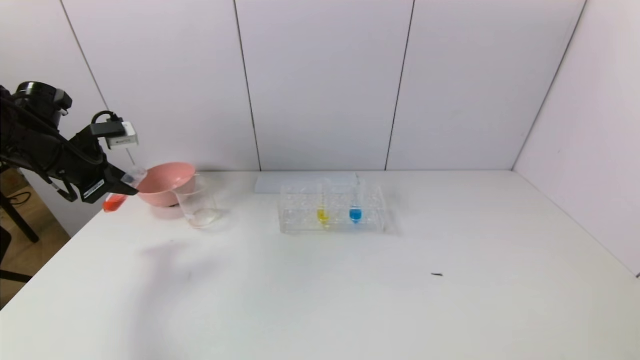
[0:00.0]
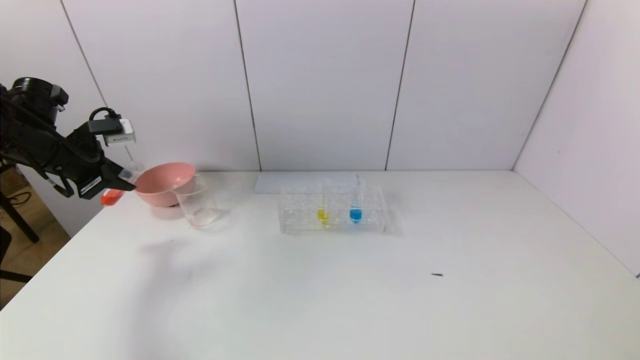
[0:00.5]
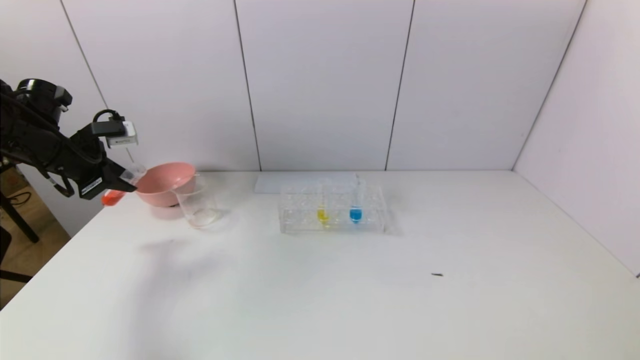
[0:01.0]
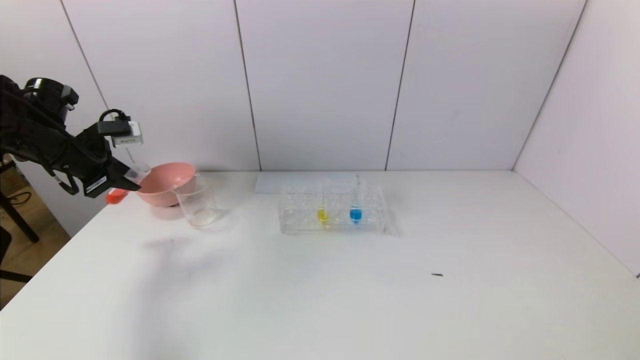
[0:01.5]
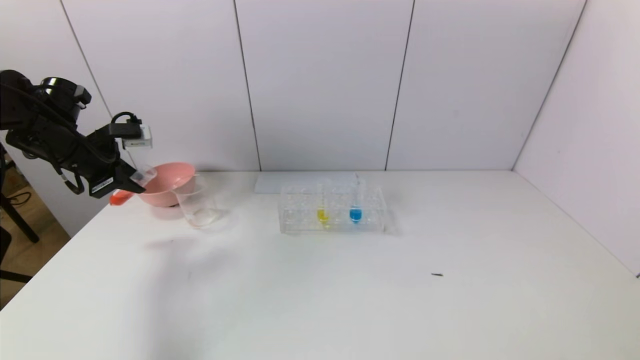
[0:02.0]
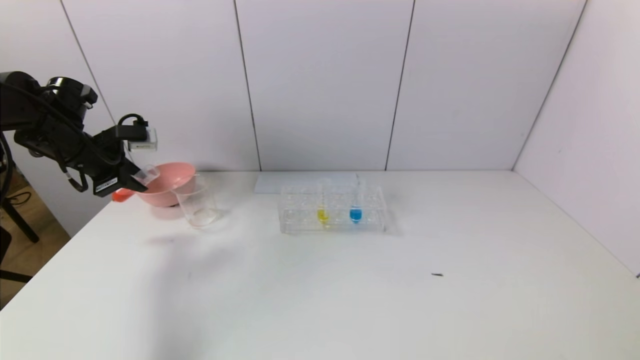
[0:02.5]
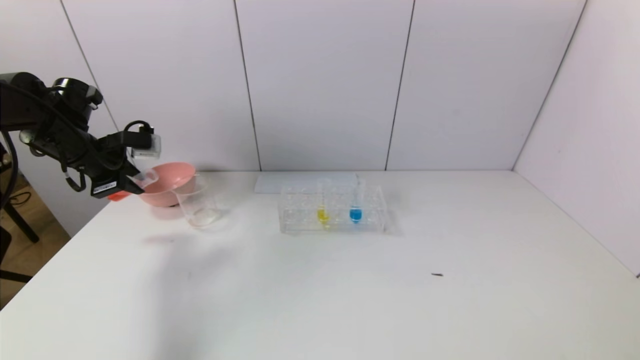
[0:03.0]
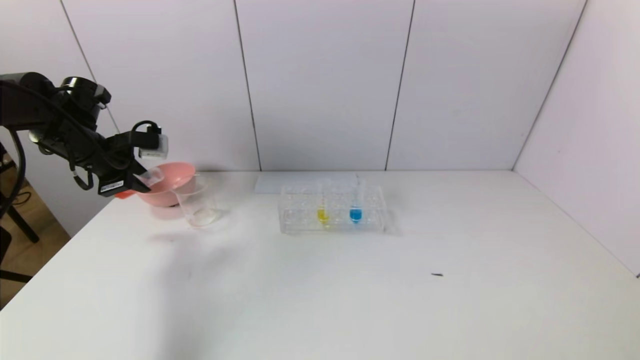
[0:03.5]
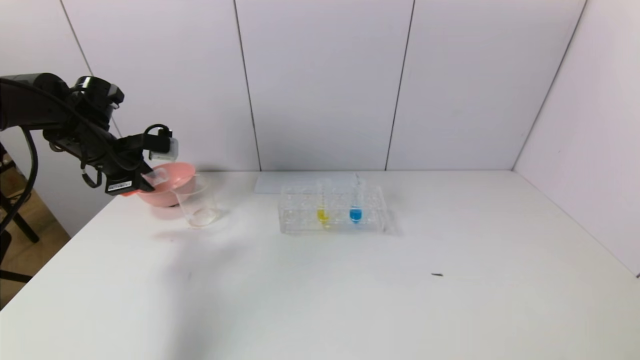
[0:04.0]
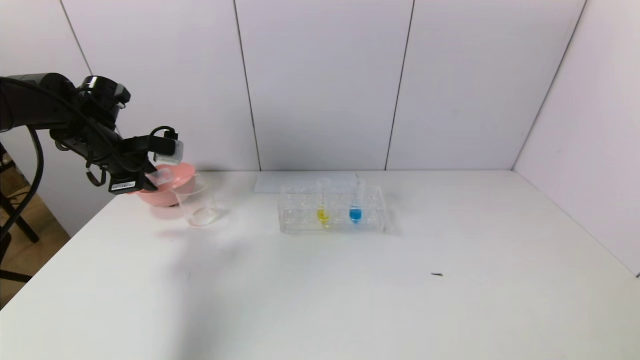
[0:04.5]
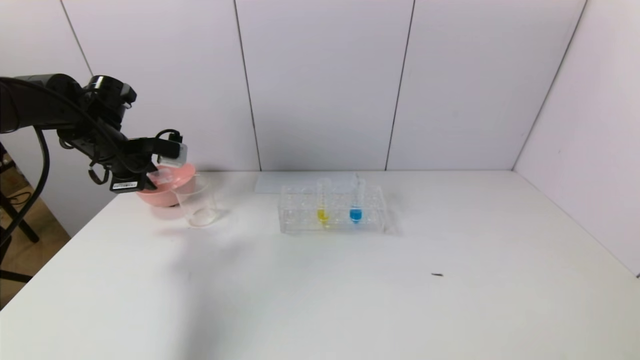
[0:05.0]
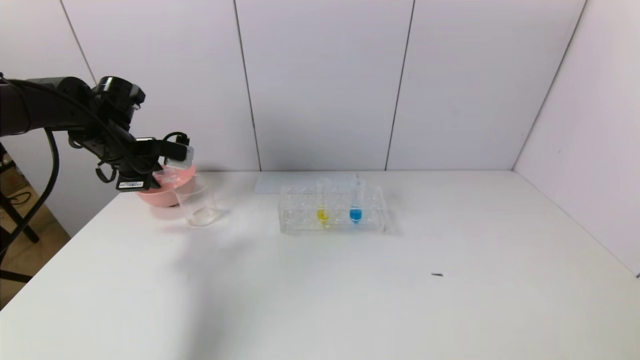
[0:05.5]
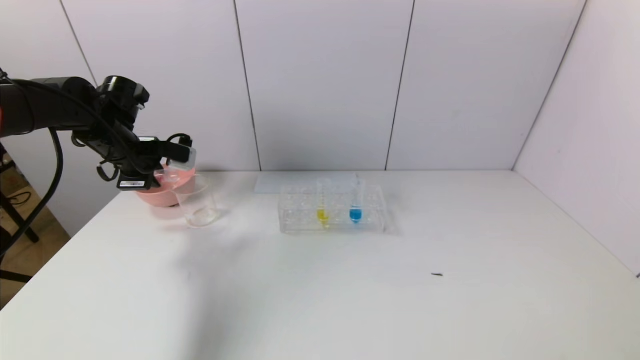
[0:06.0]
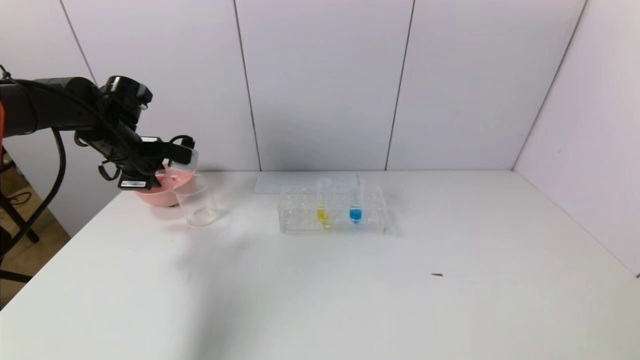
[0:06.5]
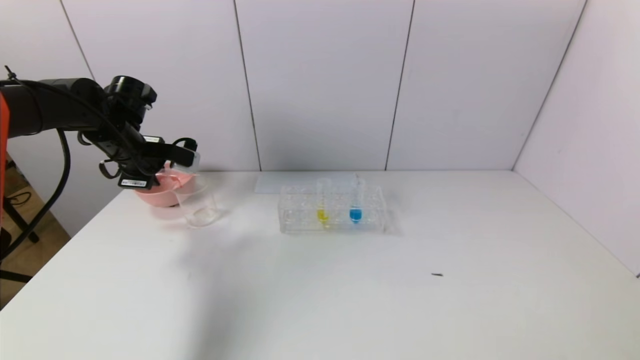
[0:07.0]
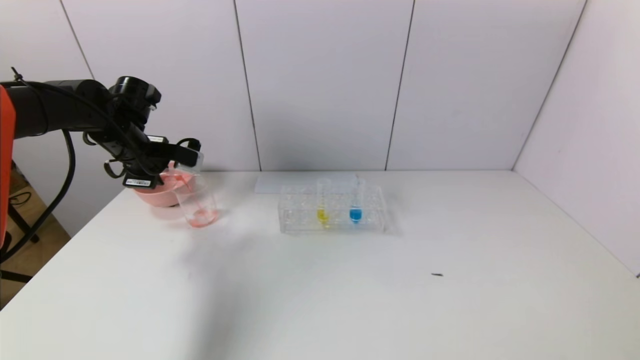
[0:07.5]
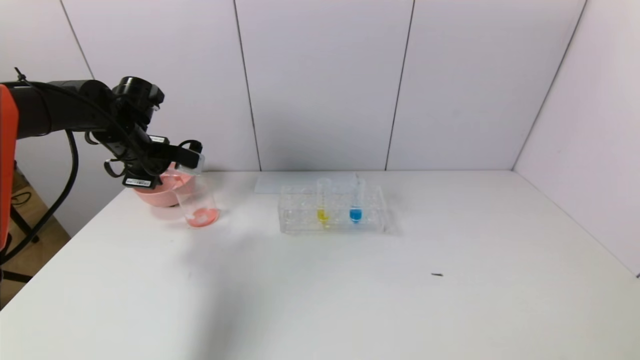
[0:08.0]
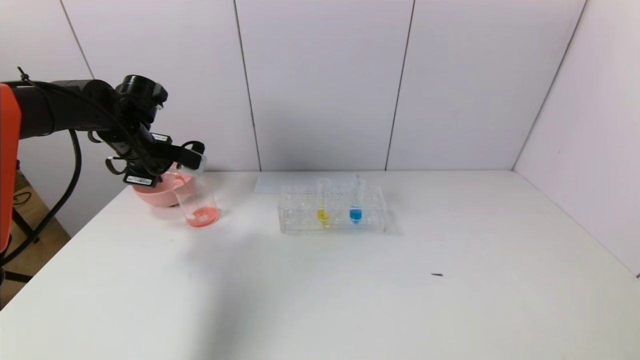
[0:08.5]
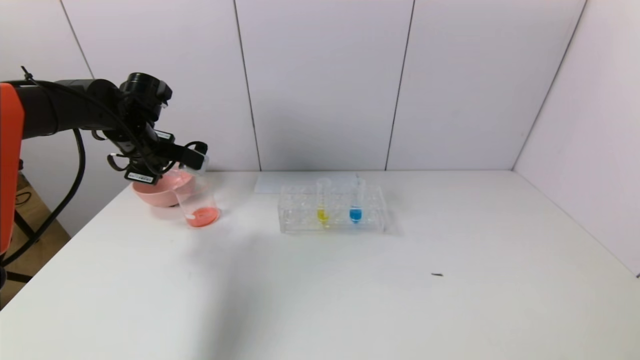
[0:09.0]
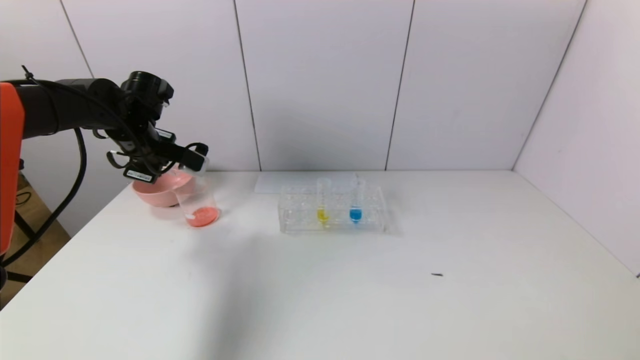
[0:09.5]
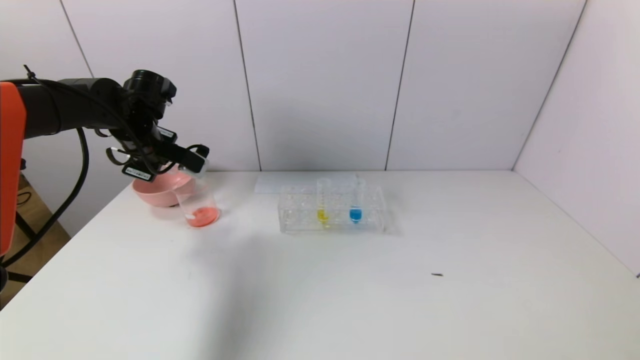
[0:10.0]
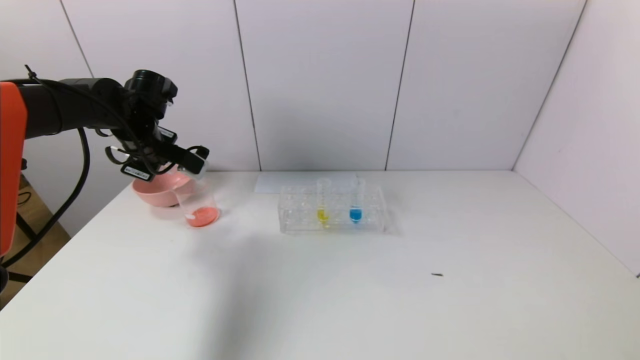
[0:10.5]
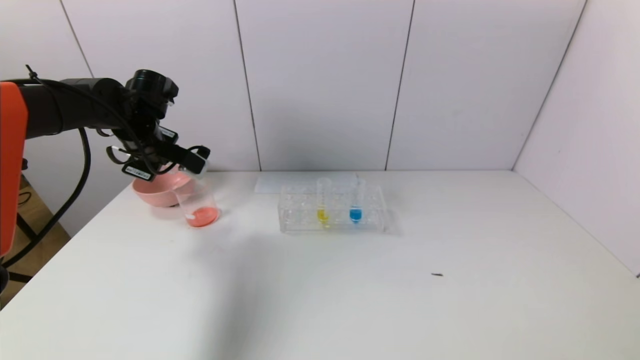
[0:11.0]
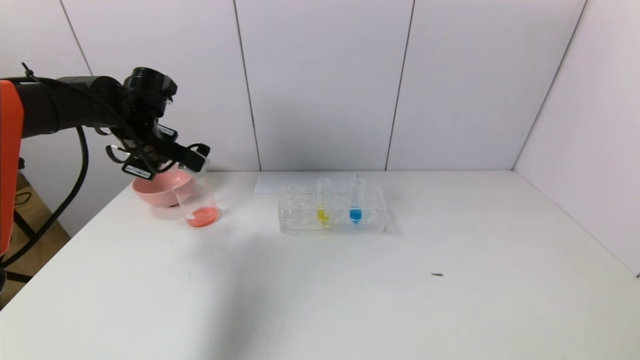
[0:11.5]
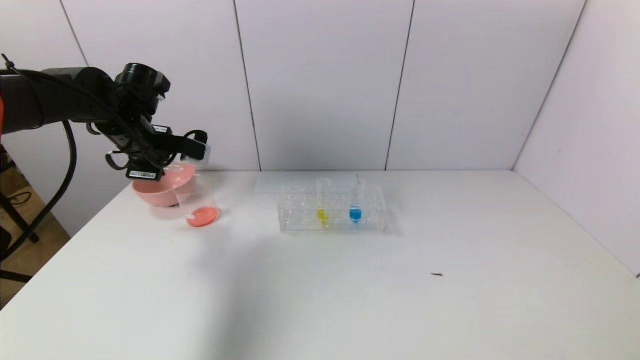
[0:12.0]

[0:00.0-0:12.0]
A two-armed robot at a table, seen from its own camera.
Task of the whole recording: pick up the test tube with yellow pigment and the test tube with red pigment by grippers and pour them into the beaker.
Step, 0:00.0 to 0:11.5: Pour the red reagent into the graduated cylinder with the left gripper.
0:00.0 to 0:02.0: The grippers stay close to where they were, moving slightly.
0:02.0 to 0:04.0: The grippers stay close to where they were, moving slightly.
0:04.0 to 0:06.0: There are only small adjustments of the grippers.
0:06.0 to 0:08.0: The grippers make only small movements.
0:08.0 to 0:12.0: There are only small adjustments of the grippers.

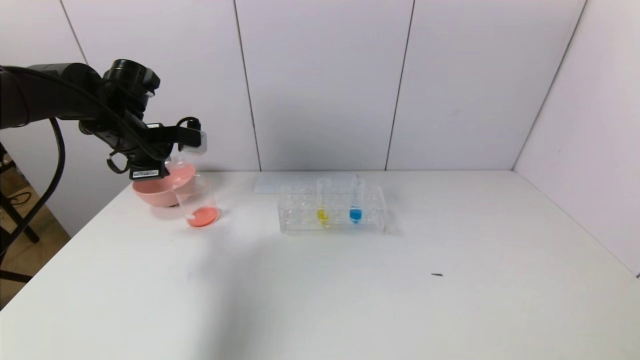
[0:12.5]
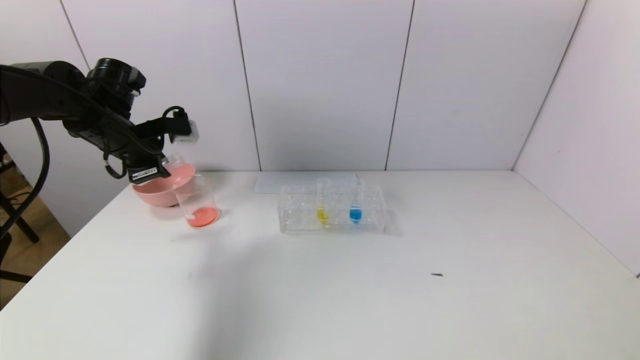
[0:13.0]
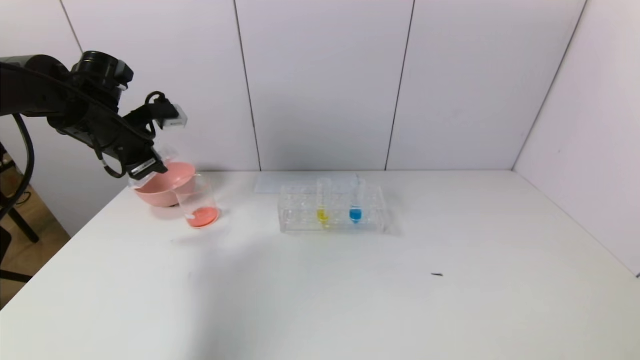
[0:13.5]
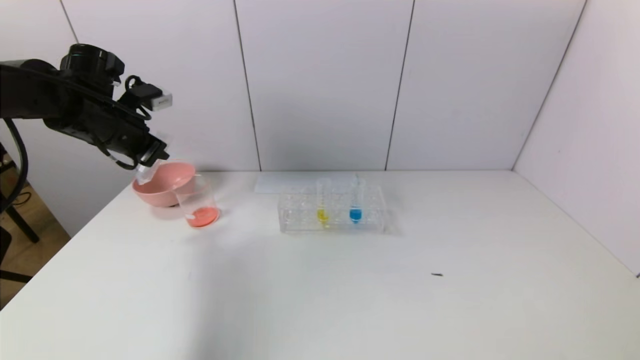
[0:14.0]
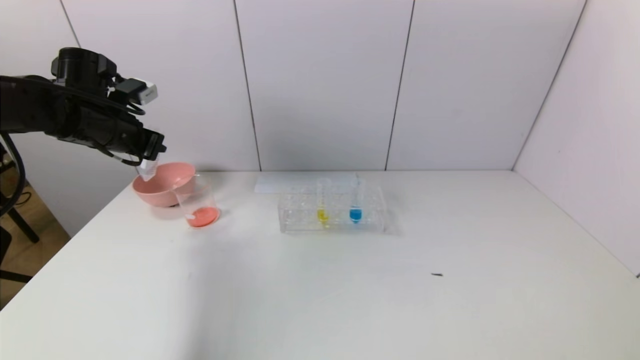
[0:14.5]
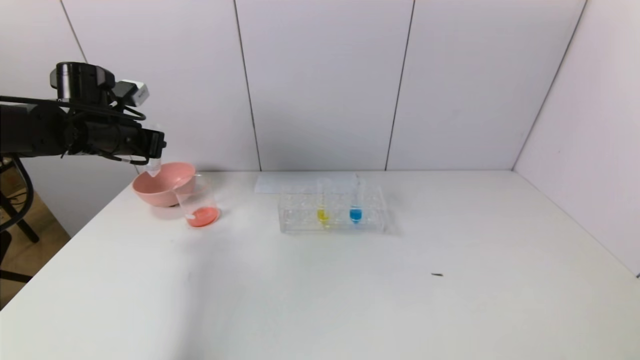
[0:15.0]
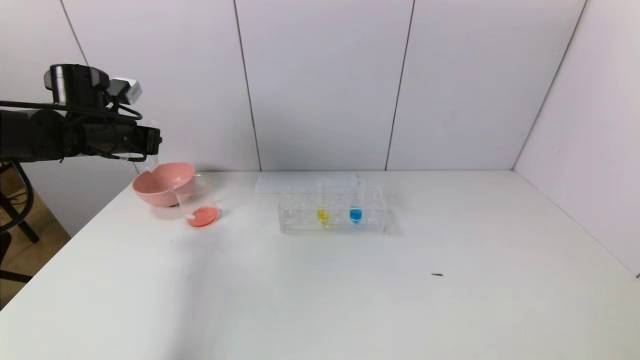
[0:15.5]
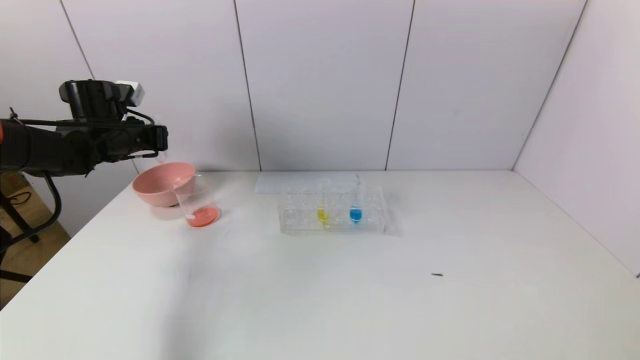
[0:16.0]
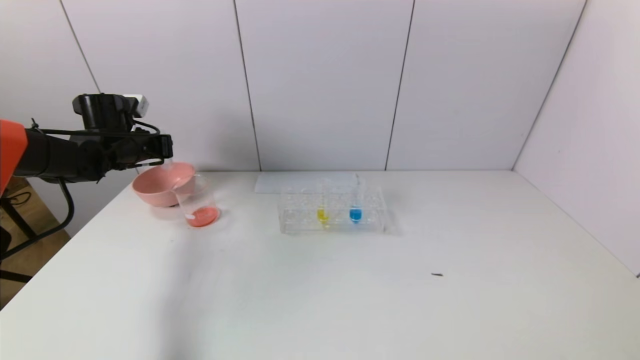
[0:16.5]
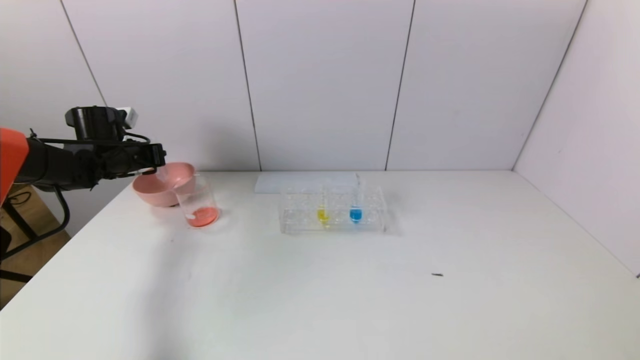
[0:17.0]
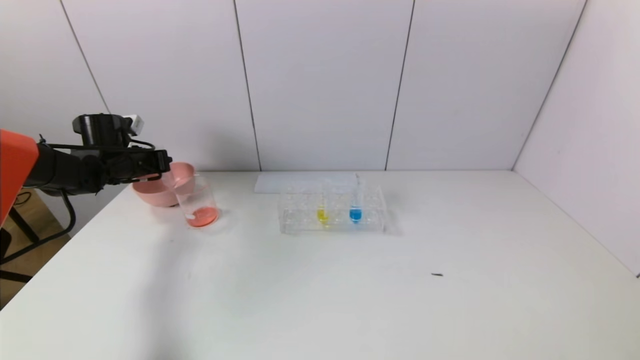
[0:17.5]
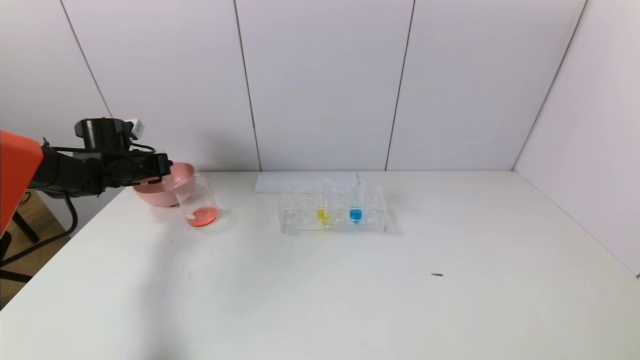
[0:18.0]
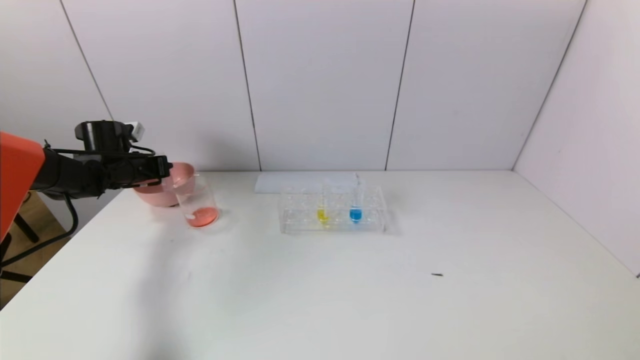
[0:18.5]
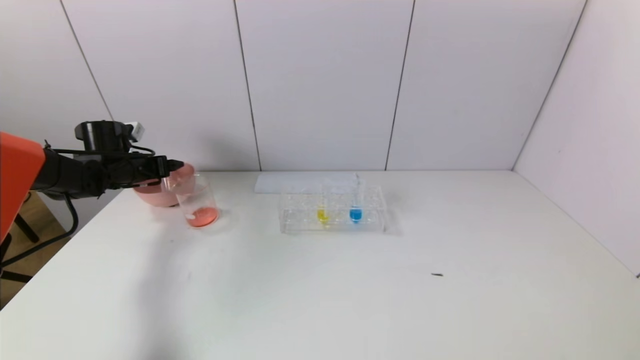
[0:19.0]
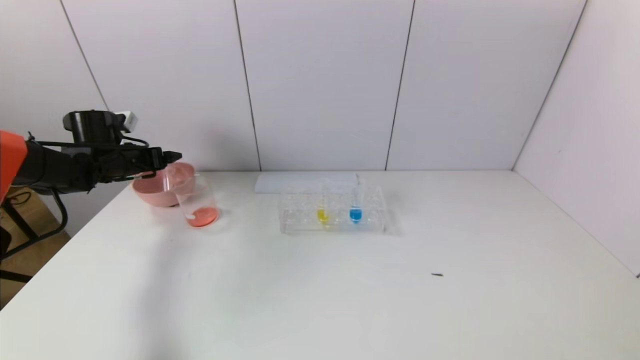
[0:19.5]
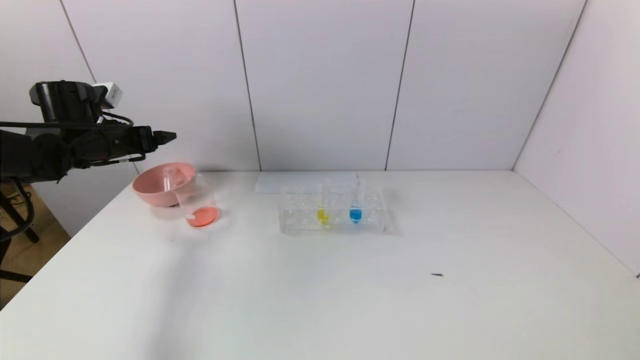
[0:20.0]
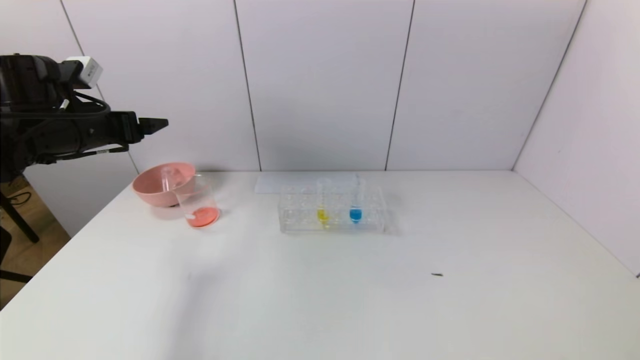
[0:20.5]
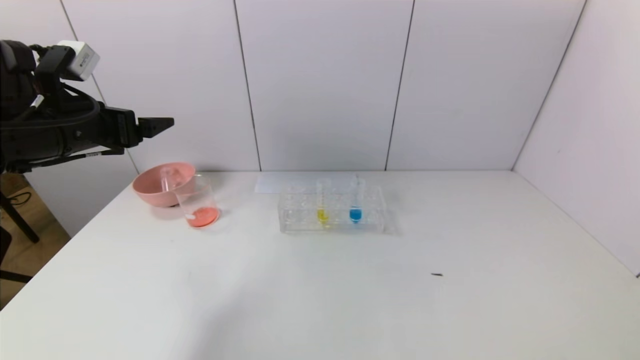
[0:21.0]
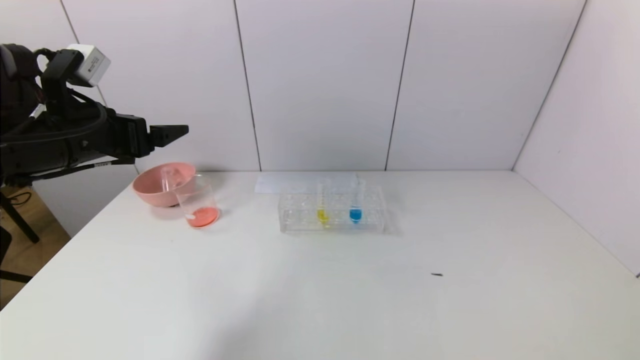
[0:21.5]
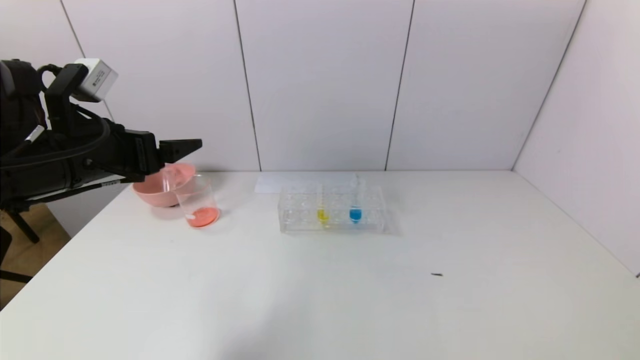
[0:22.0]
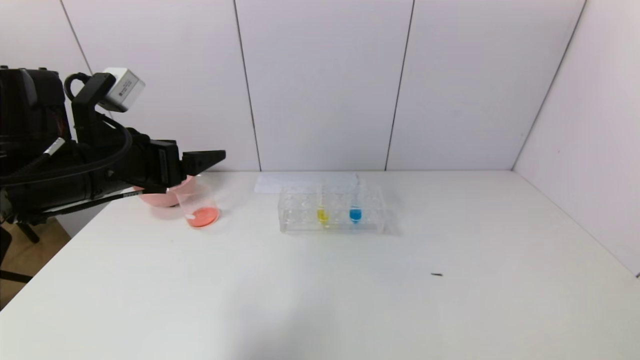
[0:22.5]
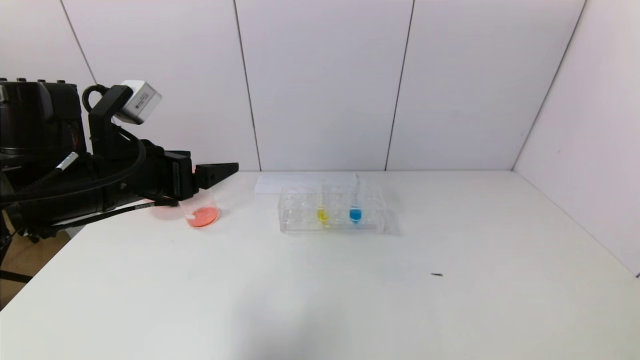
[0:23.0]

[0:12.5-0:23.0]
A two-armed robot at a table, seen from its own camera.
Task of the whole recording: pick up the test tube with yellow pigment and the test tube with red pigment by grippers and pour them into the beaker.
Step, 0:12.5 to 0:19.0: Place the test tube into the pink bowl with the left gripper.
0:14.5 to 0:16.5: The left gripper travels downward and forward by about 10 cm.
0:16.5 to 0:19.0: The left gripper goes about 5 cm downward, and opens its fingers.
0:19.0 to 0:21.0: The left gripper goes roughly 25 cm backward, upward and to the right.
0:21.0 to 0:23.0: The left gripper shifts some 10 cm to the right and backward.
